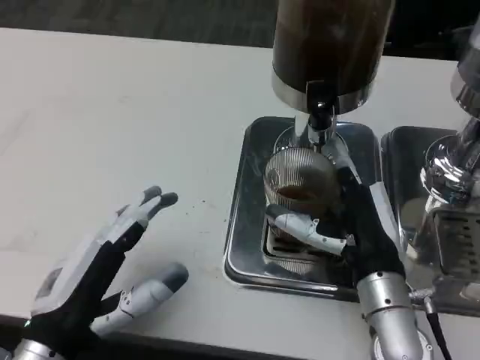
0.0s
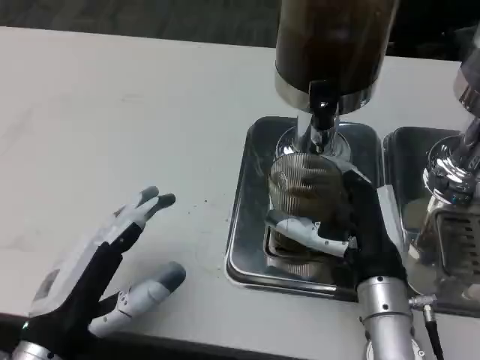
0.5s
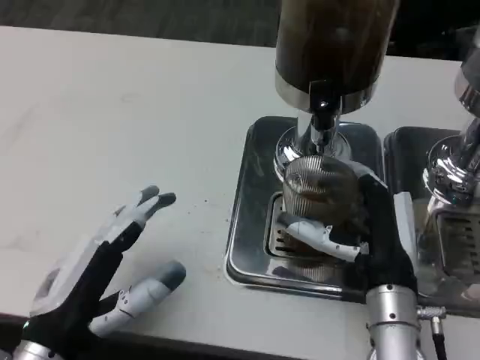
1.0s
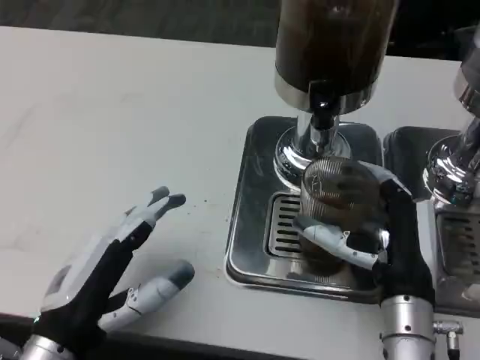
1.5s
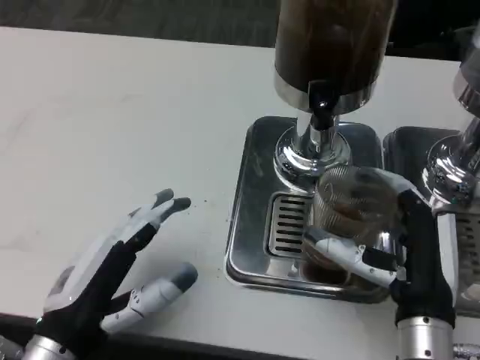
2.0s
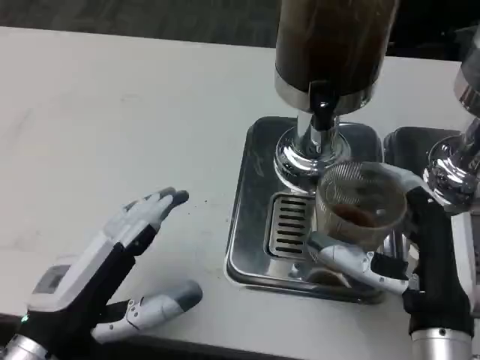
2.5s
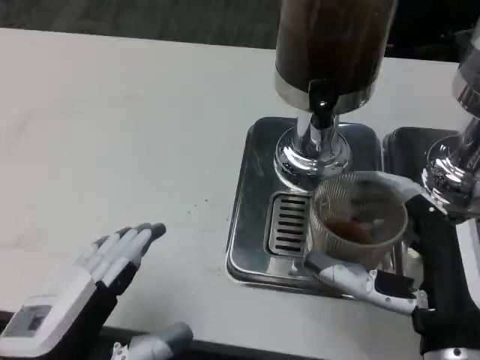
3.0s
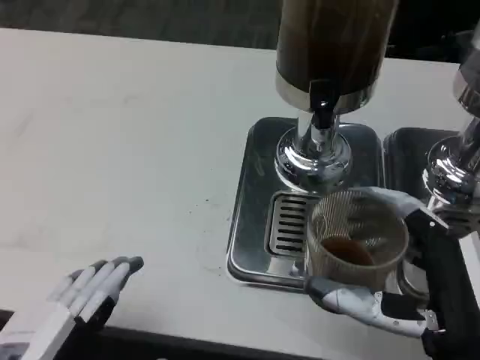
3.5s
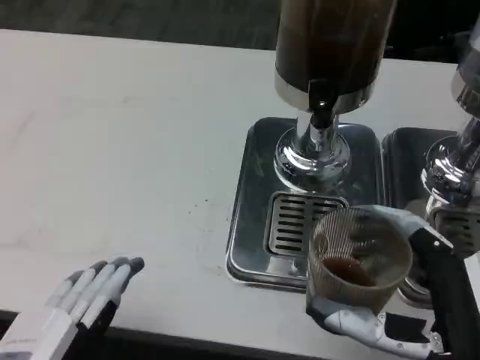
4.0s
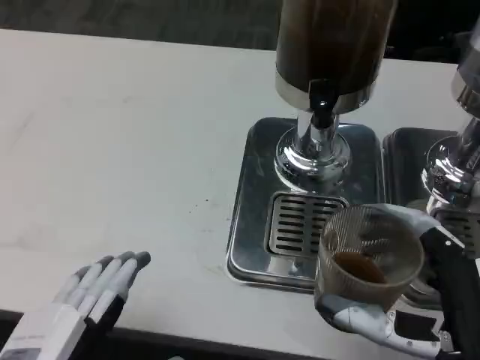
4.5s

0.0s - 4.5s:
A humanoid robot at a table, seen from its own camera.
Task of the whole recording: Grasp the cup under the faucet to collect the drink, then remove the cup.
0.0s - 2.0s: The right hand goes some 5 cm backward.
2.0s - 4.5s: The hands both shift backward by some 10 cm.

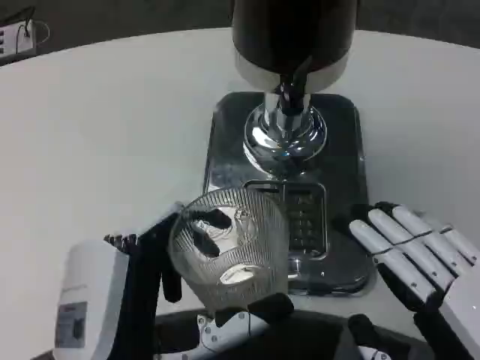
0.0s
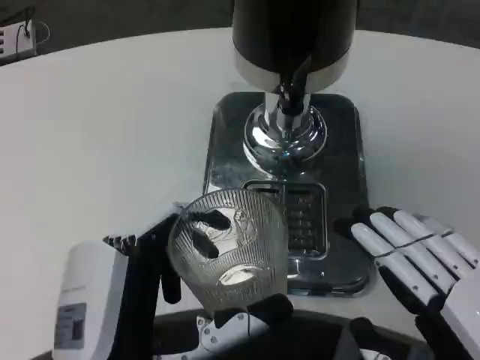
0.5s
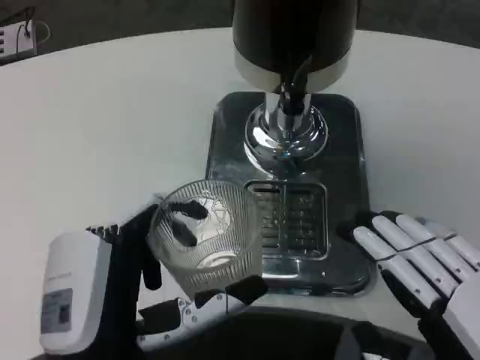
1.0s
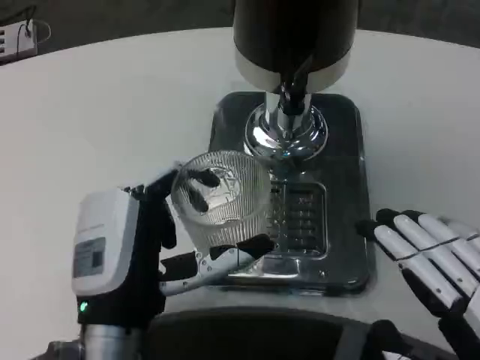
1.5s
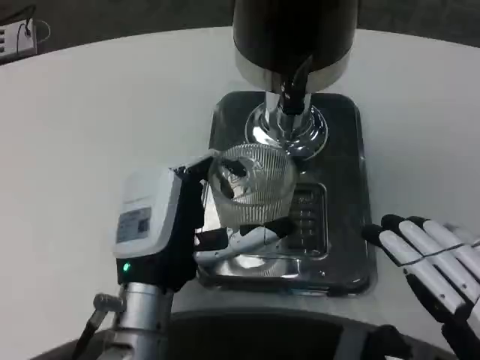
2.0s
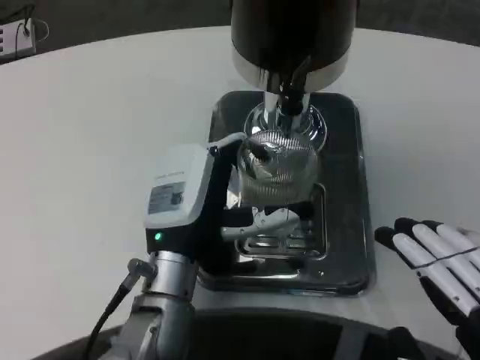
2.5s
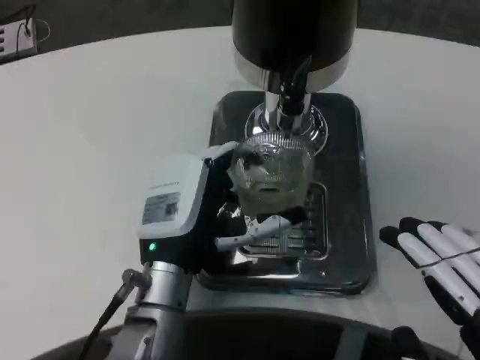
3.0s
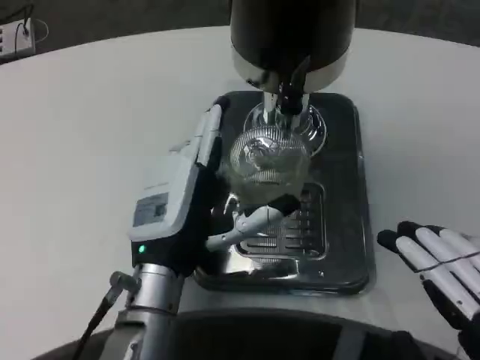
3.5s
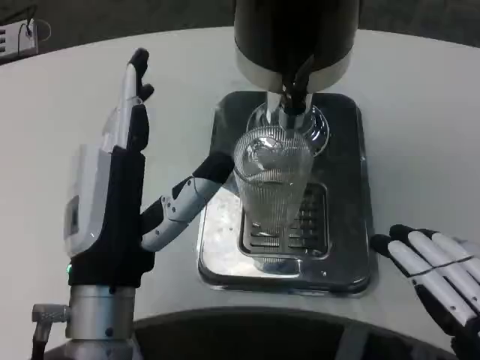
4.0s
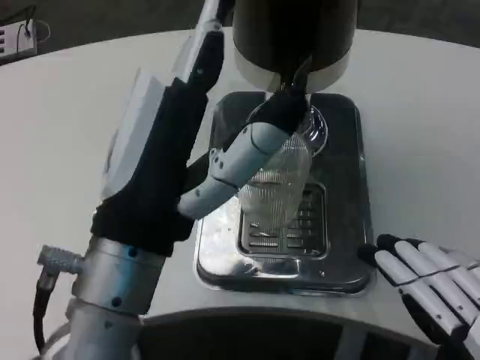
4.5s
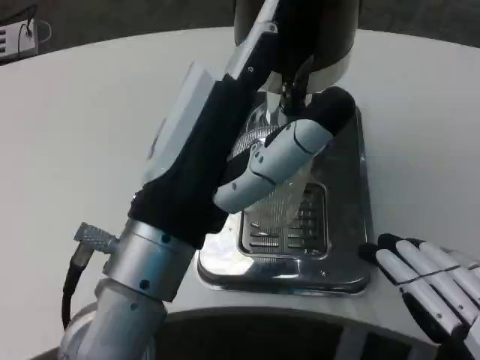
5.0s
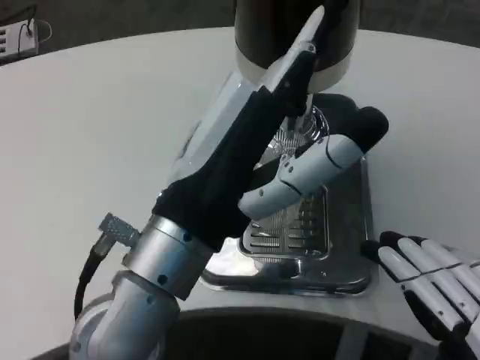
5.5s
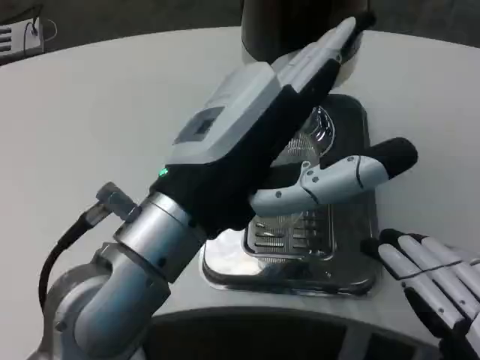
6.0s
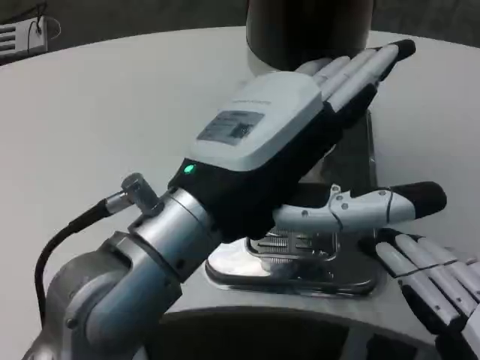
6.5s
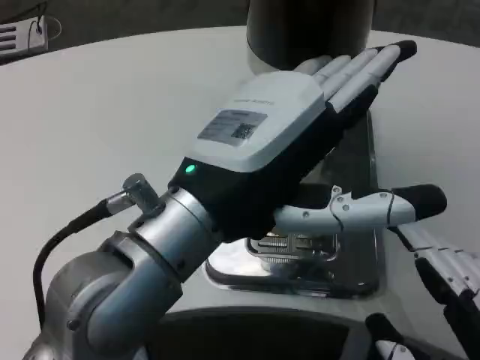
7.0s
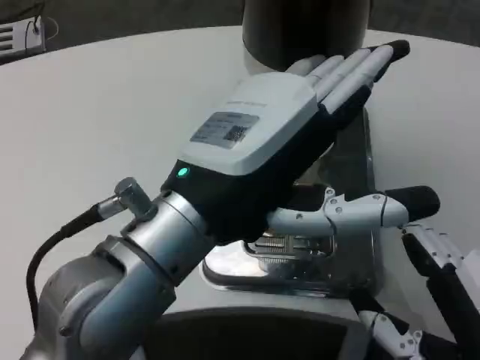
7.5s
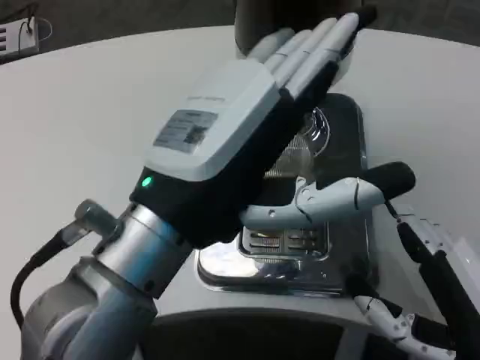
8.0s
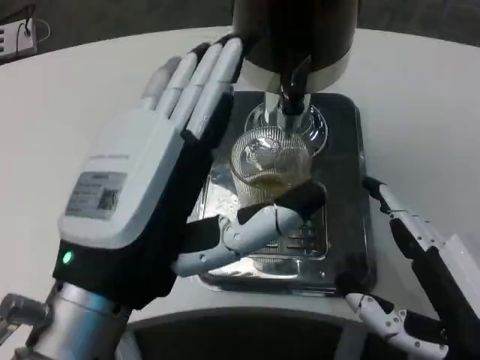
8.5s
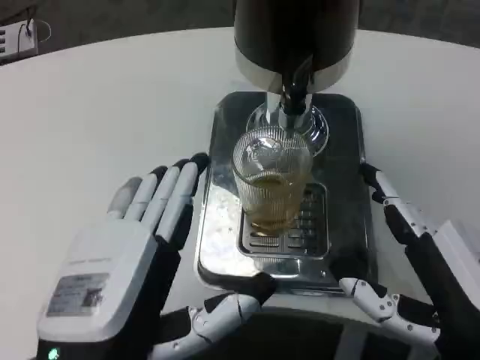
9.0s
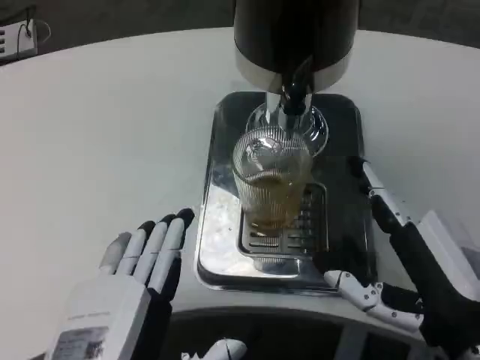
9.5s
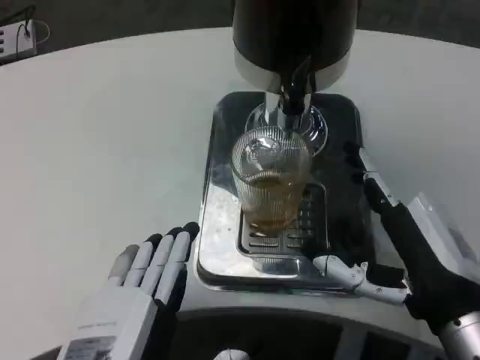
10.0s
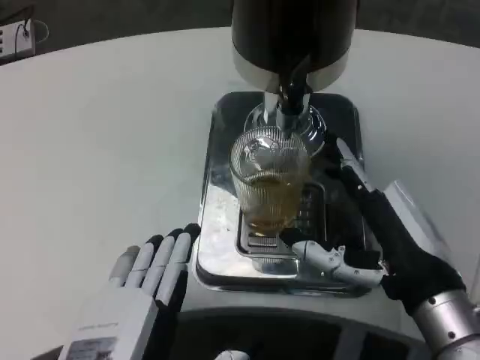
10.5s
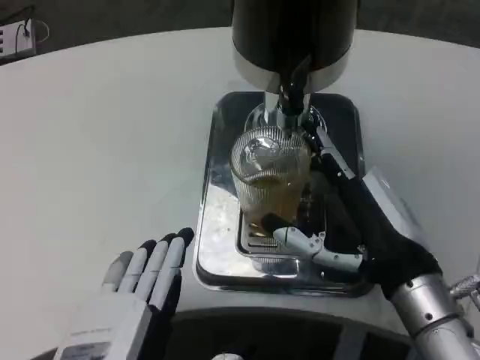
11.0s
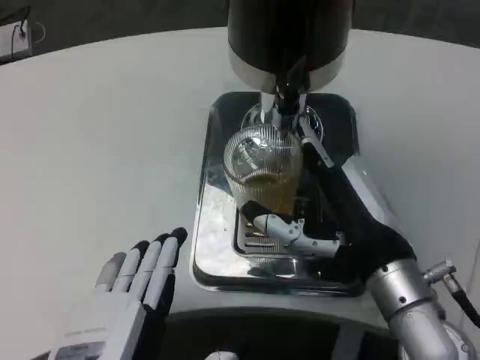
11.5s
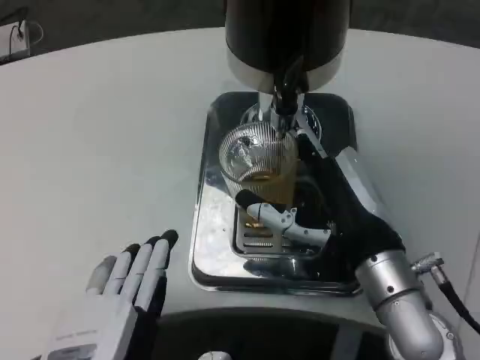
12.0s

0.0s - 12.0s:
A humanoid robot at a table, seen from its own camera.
Task of the whole recording: Grasp the cup under the faucet to collect the drink, then remove the cup.
0.0s - 2.0s: The left hand is displaced forward by some 10 cm.
2.0s - 4.0s: The left hand ends up about 5 cm from where it was.
4.0s - 6.0s: The left hand heads upward, covering roughly 10 cm.
6.0s - 8.0s: The right hand moves forward, some 5 cm.
8.0s - 10.0s: The right hand heads forward, covering about 5 cm. Meanwhile the left hand is displaced downward and backward by roughly 15 cm.
10.0s - 12.0s: The right hand goes about 10 cm forward and to the left.

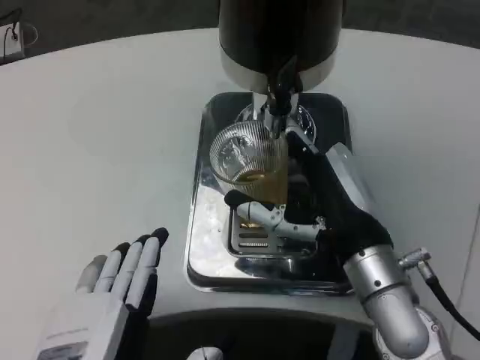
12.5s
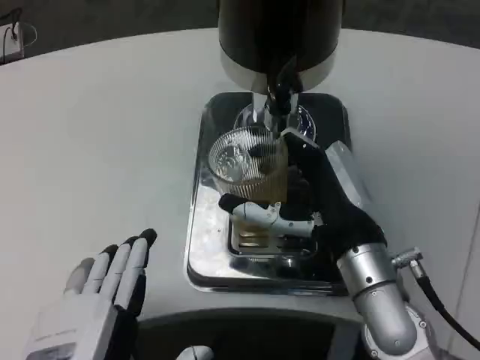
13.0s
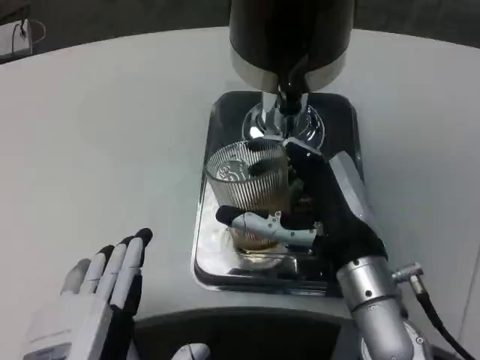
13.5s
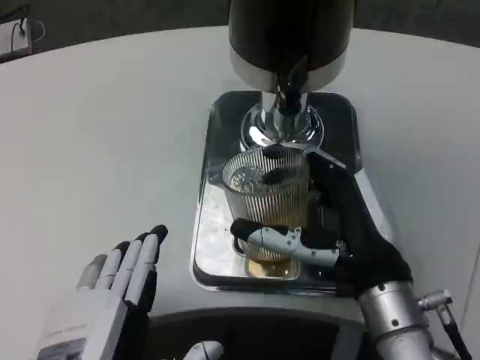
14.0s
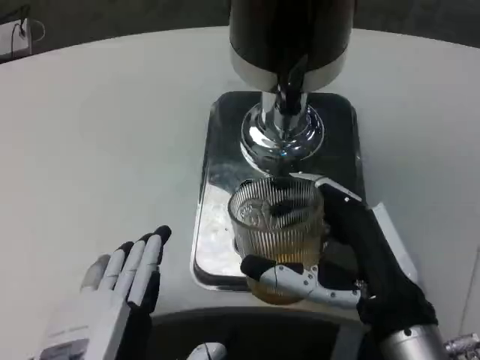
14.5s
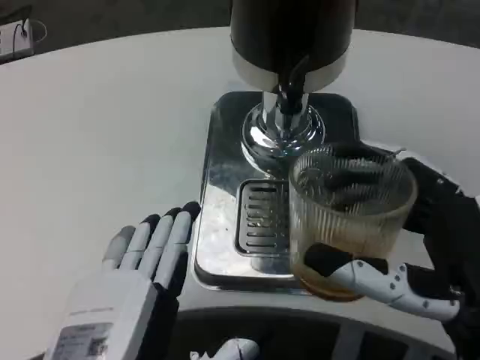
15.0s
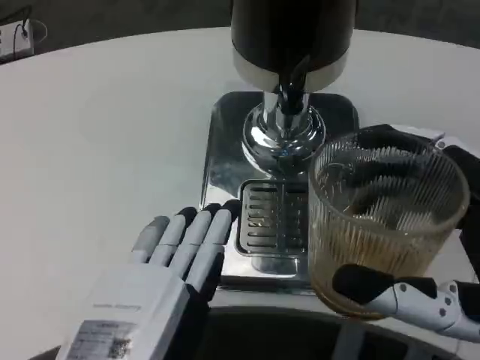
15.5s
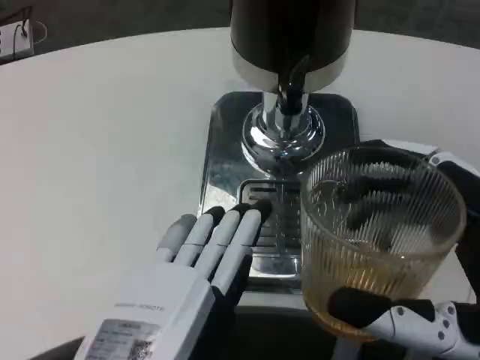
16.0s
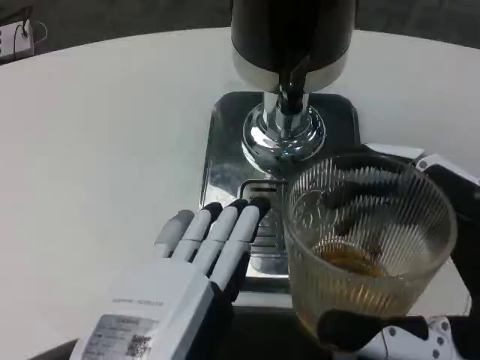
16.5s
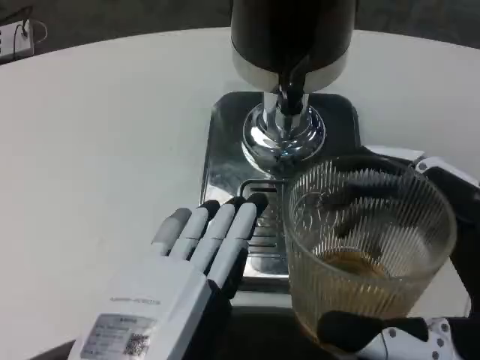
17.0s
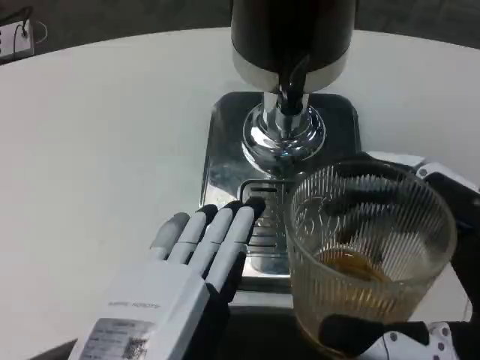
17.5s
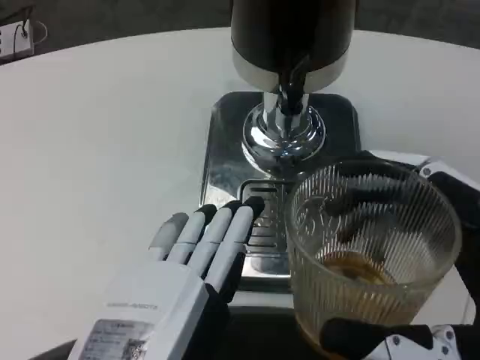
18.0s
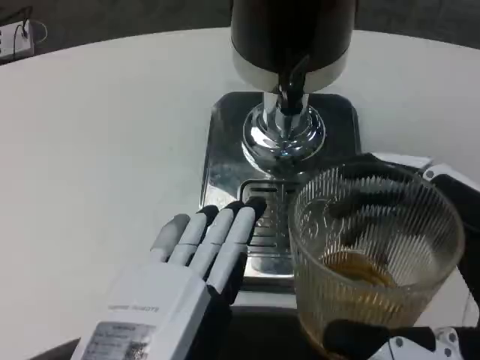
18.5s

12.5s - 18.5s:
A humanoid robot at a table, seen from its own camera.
Task of the whole recording: Grasp the cup under the faucet to collect the drink, then remove the cup.
12.5s - 14.5s: The right hand is displaced backward by about 10 cm.
14.5s - 16.5s: The left hand goes approximately 5 cm upward. The right hand moves backward, some 10 cm.
16.5s - 18.5s: The two hands keep their place.

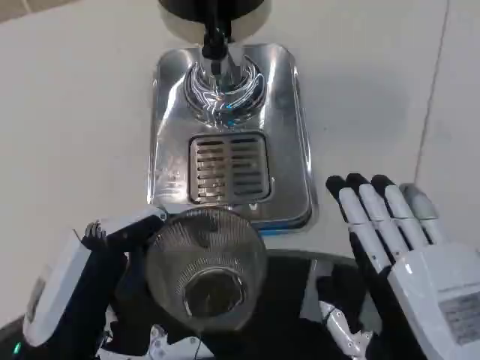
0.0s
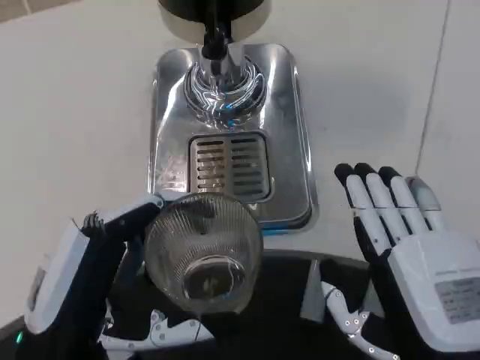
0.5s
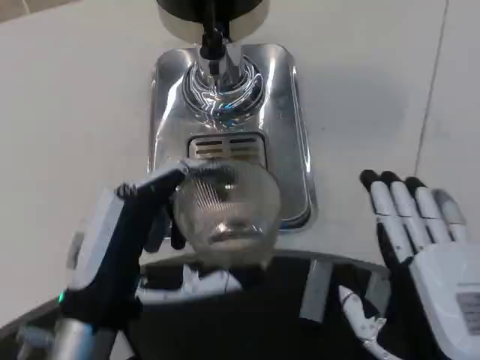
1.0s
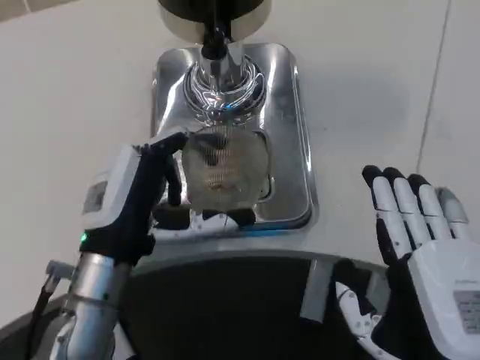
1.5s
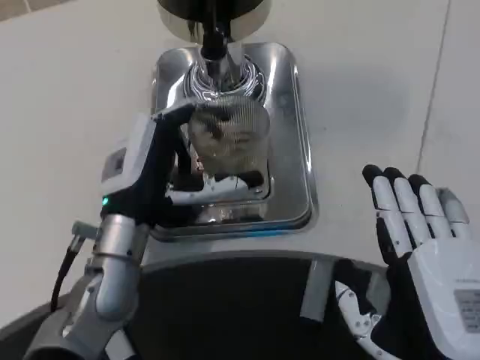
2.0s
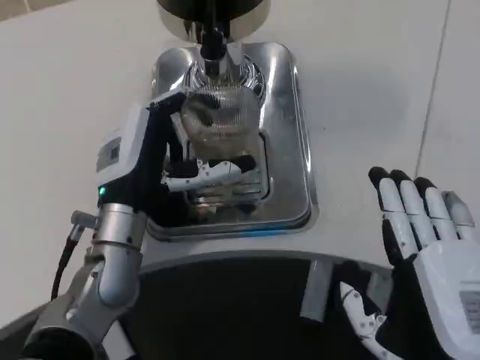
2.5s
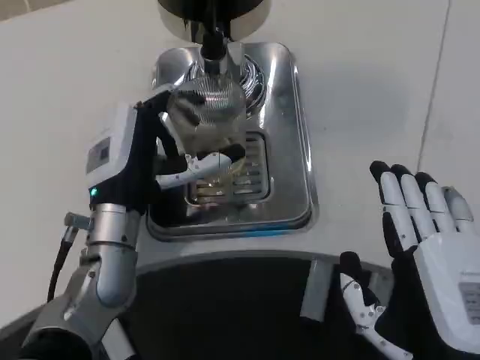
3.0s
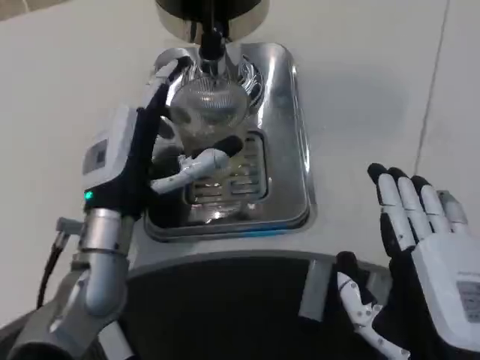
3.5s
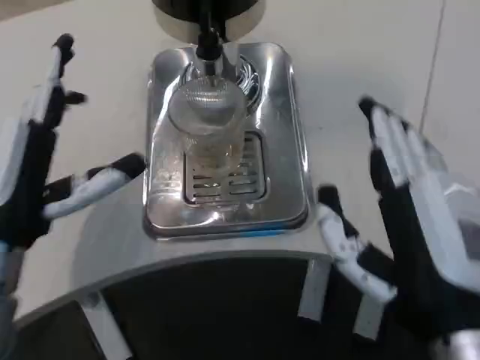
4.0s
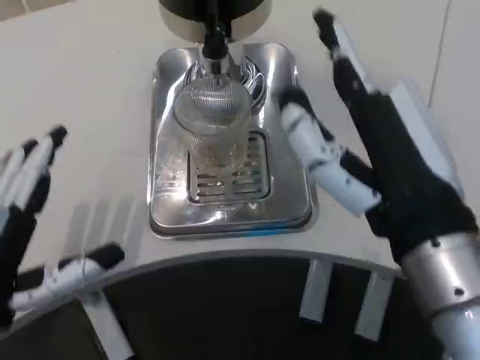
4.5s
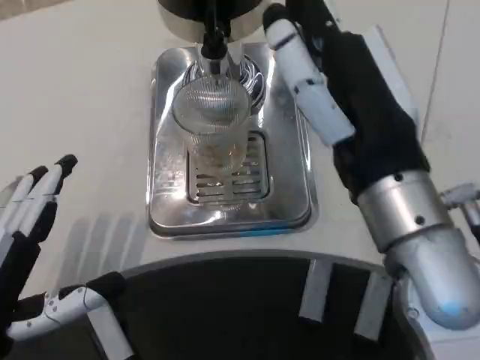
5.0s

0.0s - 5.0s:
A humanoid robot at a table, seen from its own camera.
Task of the whole recording: Grasp the cup under the faucet to collect the drink, then remove the cup.
0.0s - 2.5s: The left hand heads forward, covering roughly 15 cm.
2.5s - 5.0s: The right hand shifts roughly 15 cm upward and forward, while the left hand heads backward and to the left, covering approximately 20 cm.
